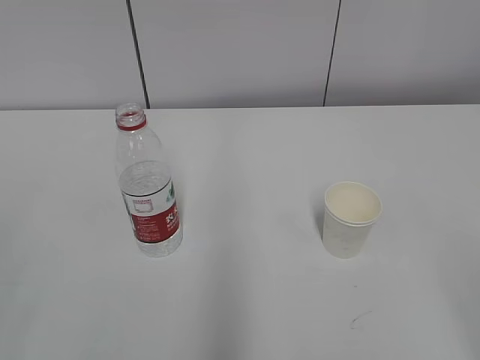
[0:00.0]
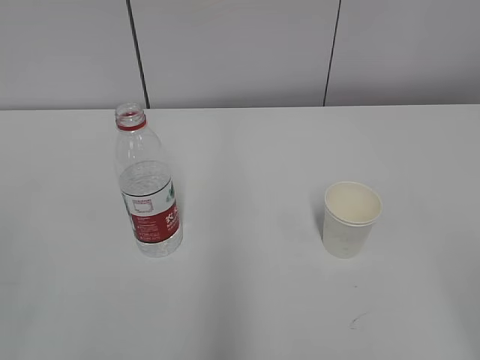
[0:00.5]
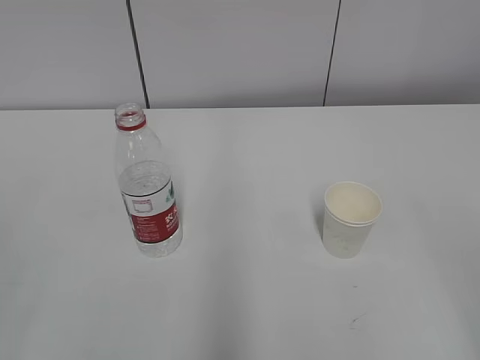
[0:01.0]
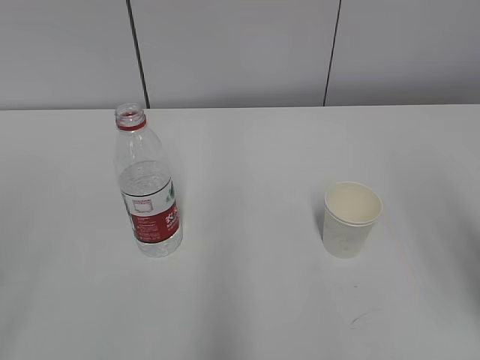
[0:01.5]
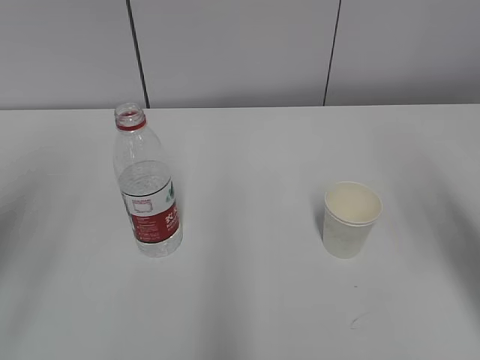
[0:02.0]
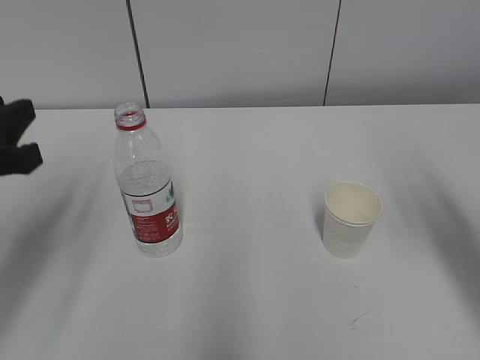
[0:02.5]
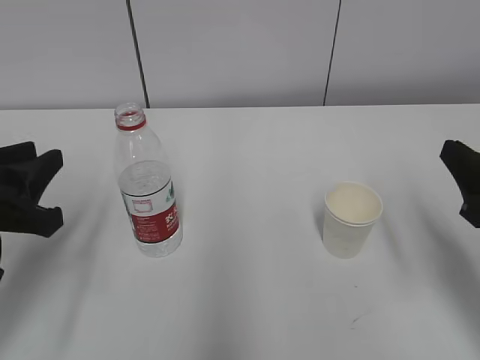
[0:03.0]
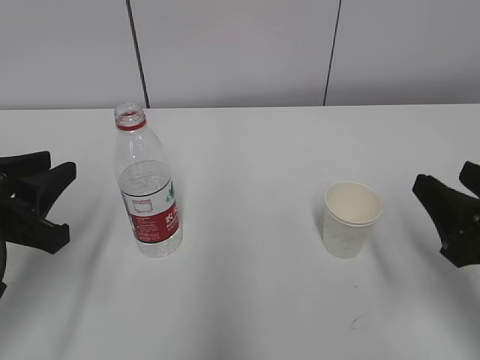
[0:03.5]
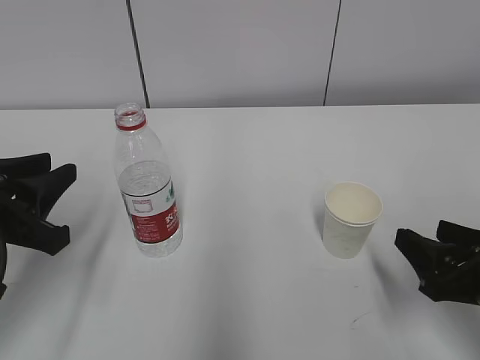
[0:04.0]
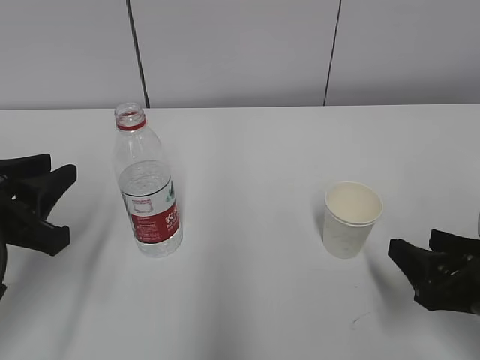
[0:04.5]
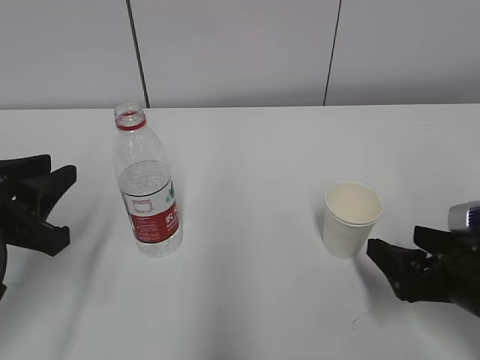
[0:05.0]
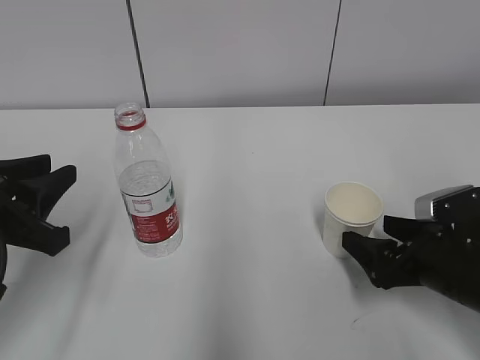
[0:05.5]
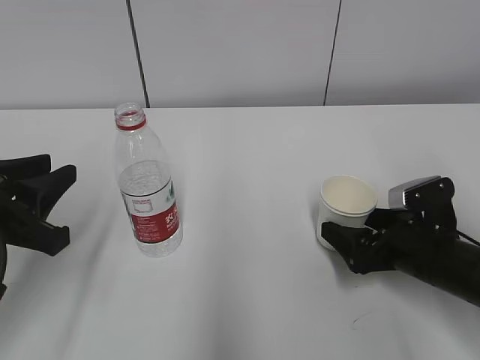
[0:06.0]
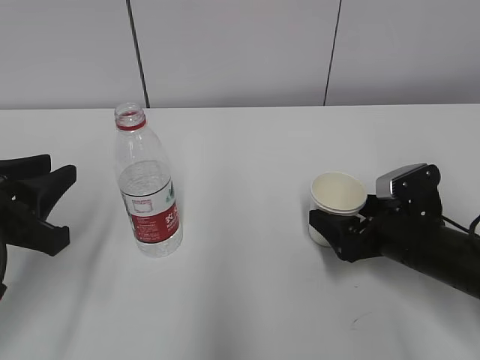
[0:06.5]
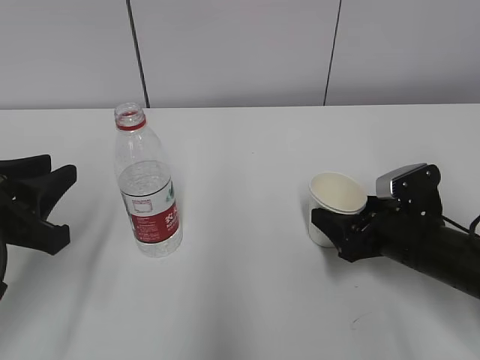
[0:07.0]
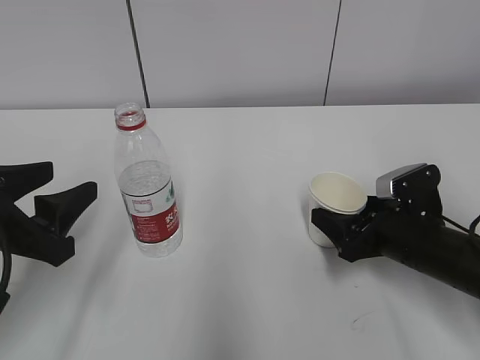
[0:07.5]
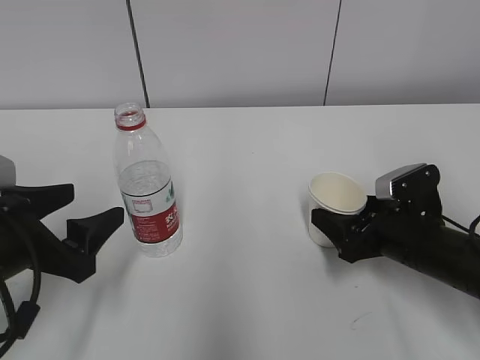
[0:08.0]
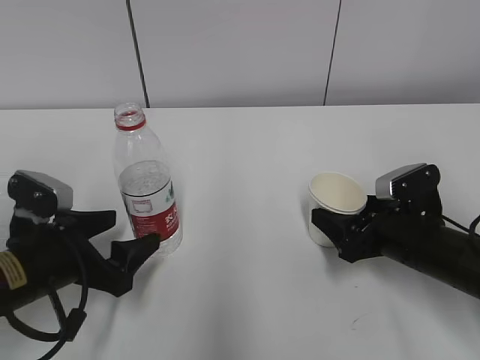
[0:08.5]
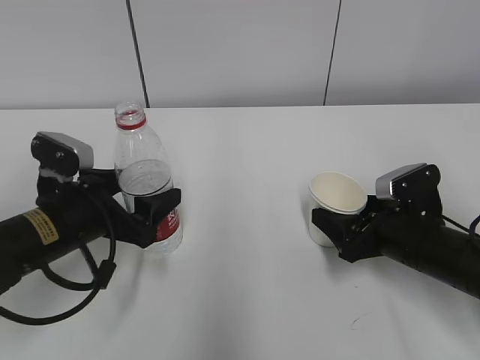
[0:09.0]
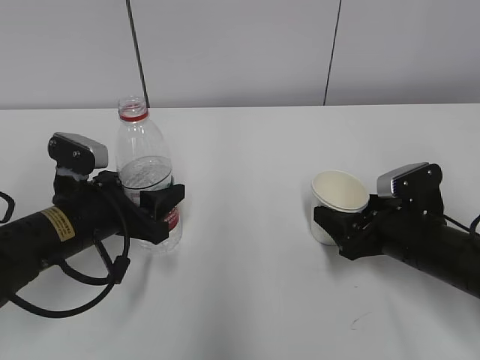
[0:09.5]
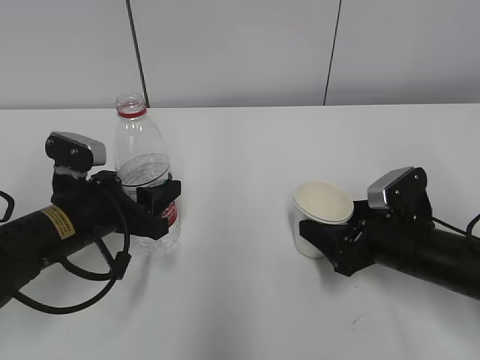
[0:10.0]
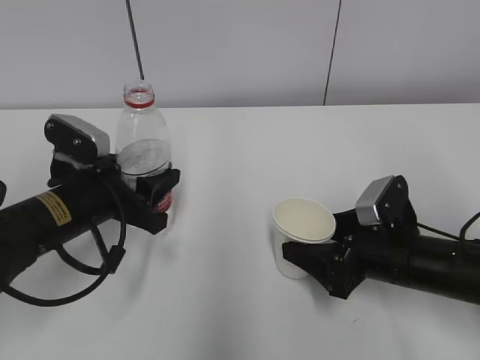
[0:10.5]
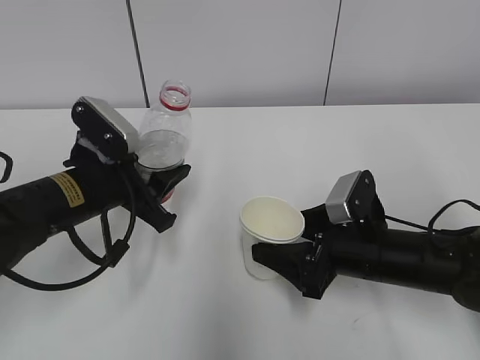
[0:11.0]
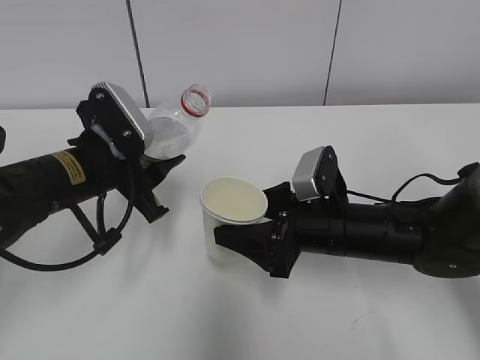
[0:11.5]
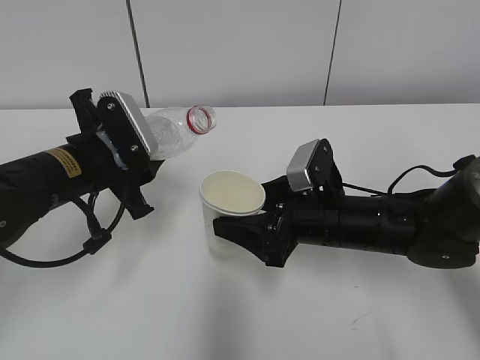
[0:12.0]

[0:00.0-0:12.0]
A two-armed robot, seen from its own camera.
Step, 0:00.0 to 0:08.0: Grab the paper cup with the right hand.
0:02.0 to 0:04.0: Both grippers travel together downward, approximately 15 cm.
0:04.0 to 0:06.0: The right gripper heads forward and downward, covering about 10 cm, and opens its fingers.
0:06.0 to 0:08.0: The left gripper opens up, while the right gripper closes its fingers.
0:08.0 to 0:10.0: The left gripper travels forward by about 10 cm, and closes up.
0:10.0 to 0:12.0: The left gripper goes roughly 5 cm upward. The right gripper is displaced to the left by roughly 10 cm.

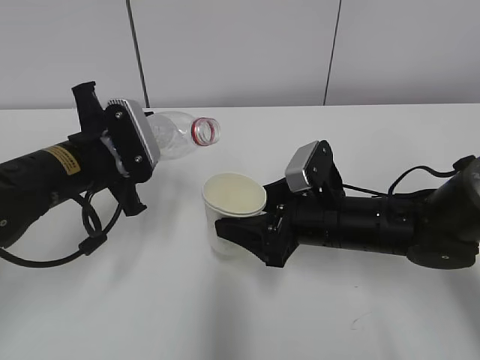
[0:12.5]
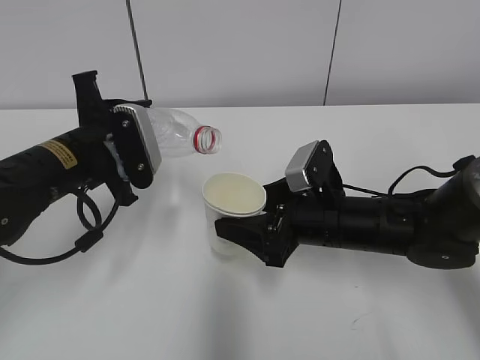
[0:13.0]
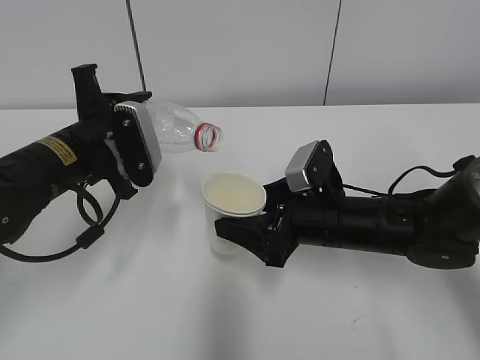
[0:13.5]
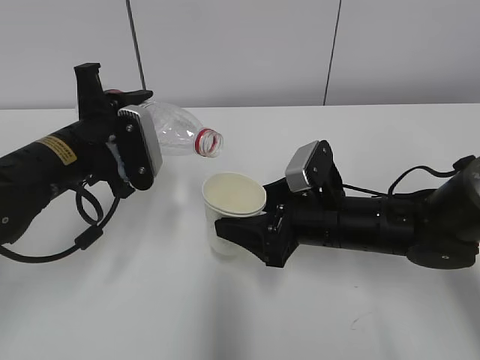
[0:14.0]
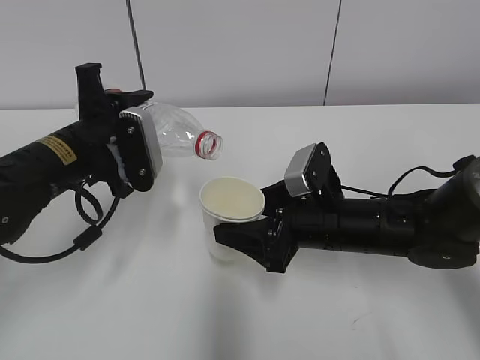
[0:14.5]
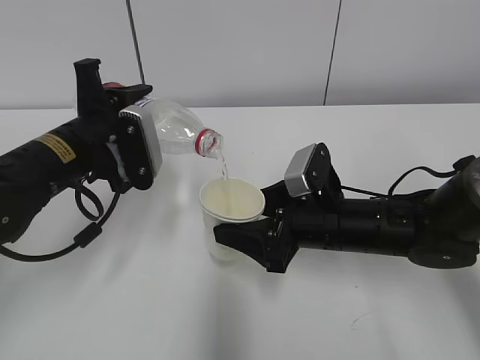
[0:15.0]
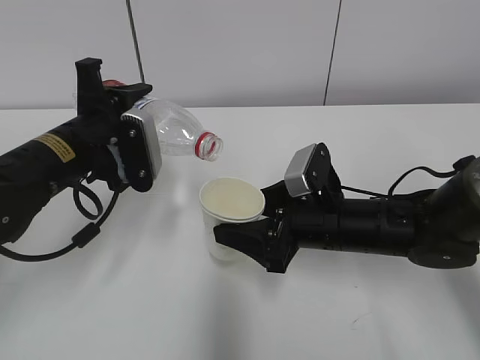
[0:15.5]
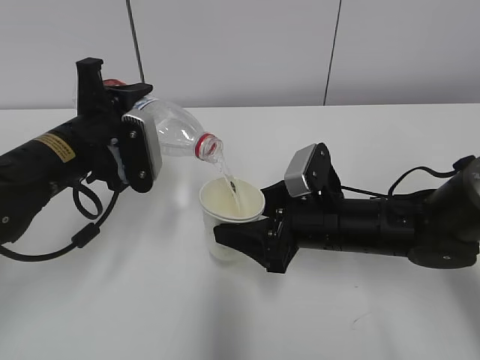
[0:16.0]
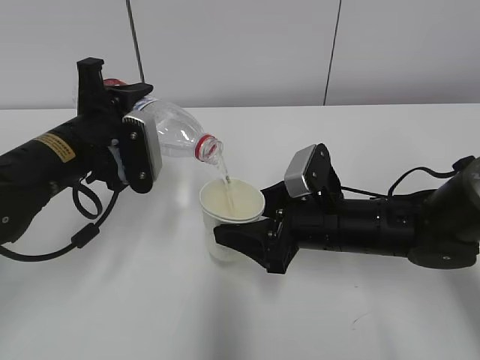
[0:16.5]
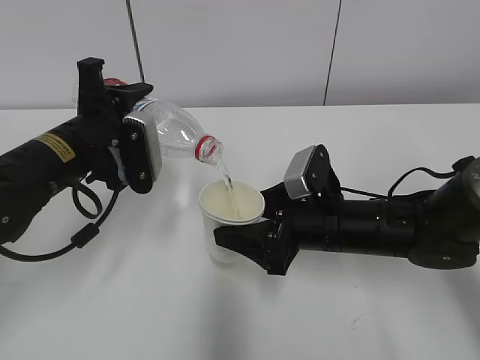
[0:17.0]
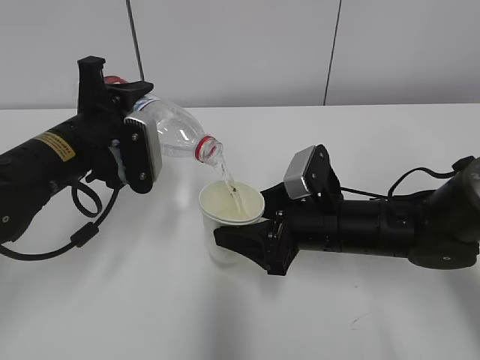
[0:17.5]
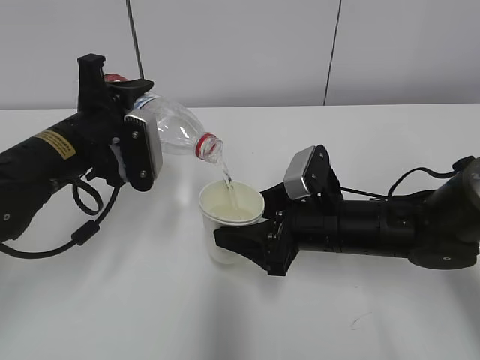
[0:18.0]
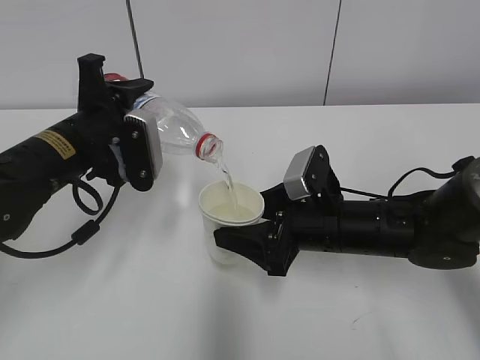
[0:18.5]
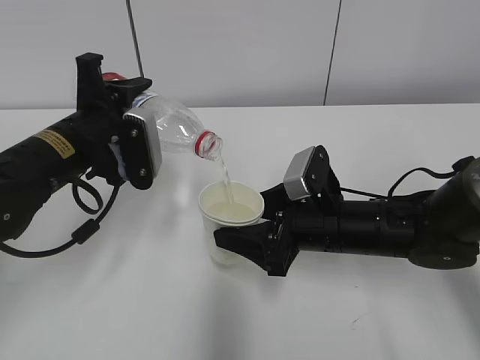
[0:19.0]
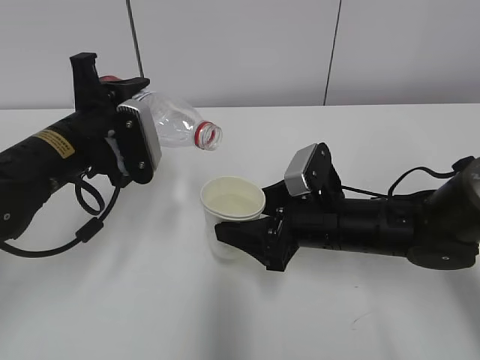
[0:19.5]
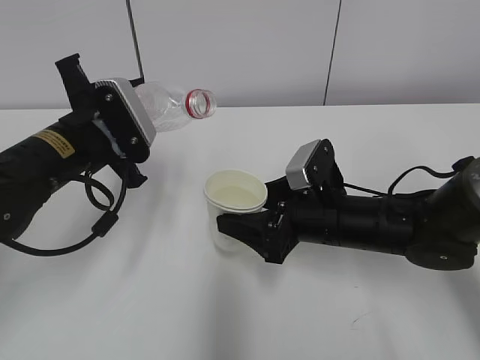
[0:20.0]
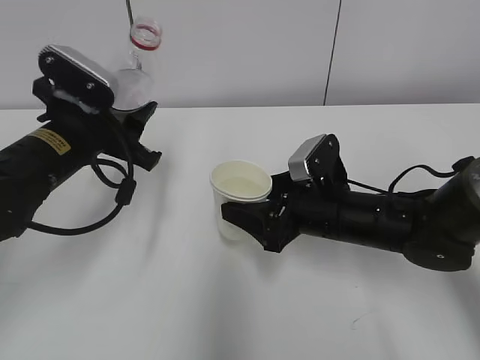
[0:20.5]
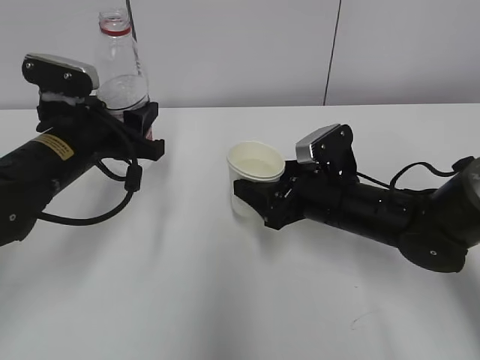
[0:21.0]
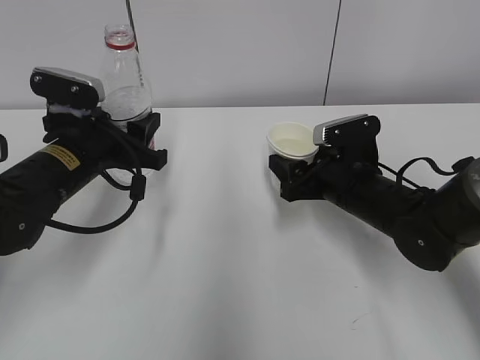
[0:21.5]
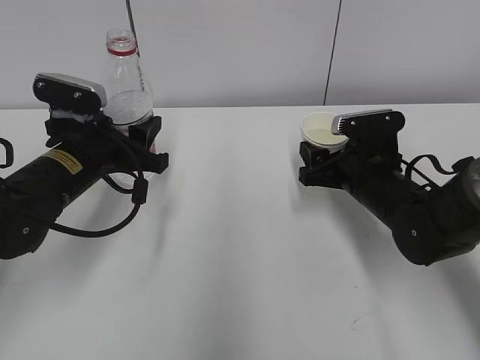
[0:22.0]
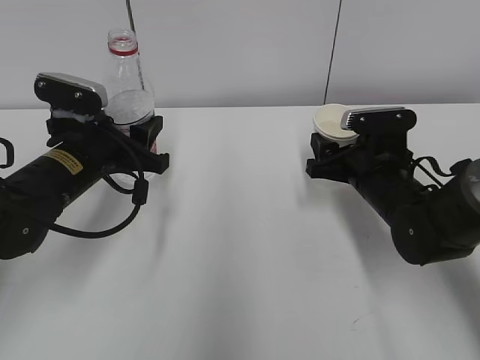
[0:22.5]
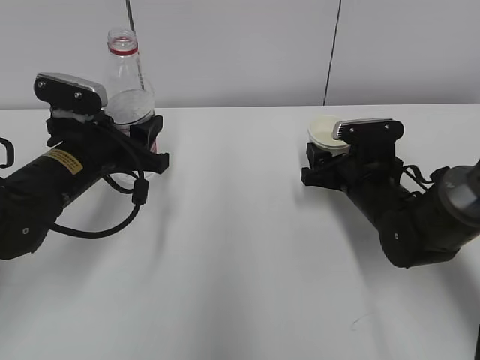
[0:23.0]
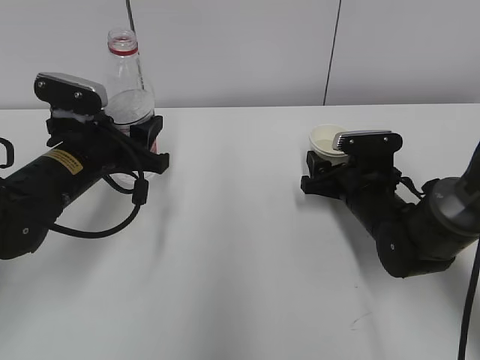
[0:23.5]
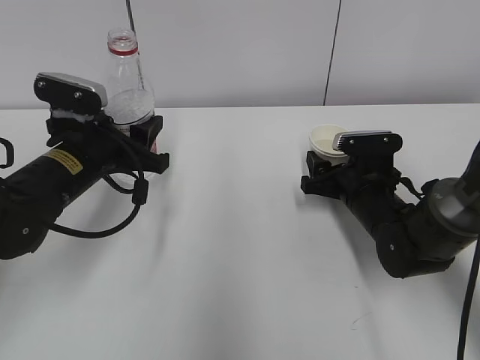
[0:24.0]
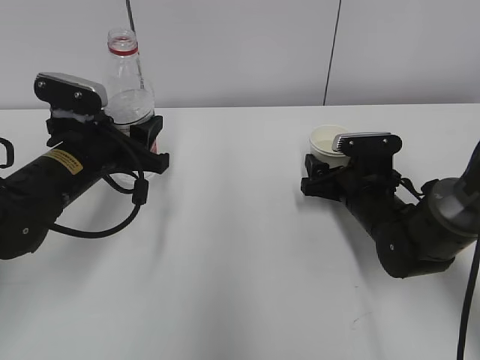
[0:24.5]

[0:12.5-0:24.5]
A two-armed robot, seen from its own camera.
Step, 0:12.5 to 0:16.0: Fill water with the right hand.
Step, 0:12.5 to 0:16.0: Pour water with the left hand.
Step, 0:17.5 to 0:20.0: Place the paper cup with the right hand.
Step, 0:20.5 to 0:22.0: Place the water bottle with the left hand.
0:14.5 to 0:16.5: There are only small adjustments of the grippers.
0:16.5 to 0:18.5: Both grippers stay about where they are.
0:20.5 to 0:22.5: The right gripper heads to the right, covering approximately 5 cm.
0:22.5 to 0:24.5: The right gripper opens up.

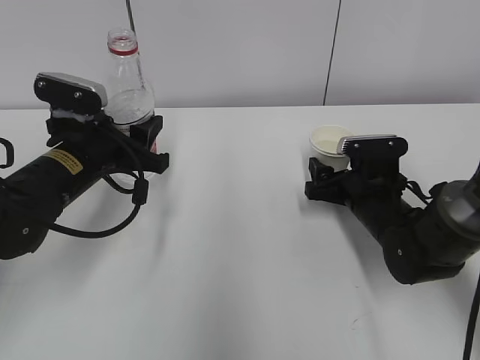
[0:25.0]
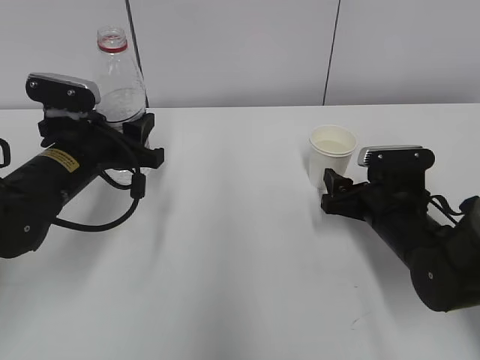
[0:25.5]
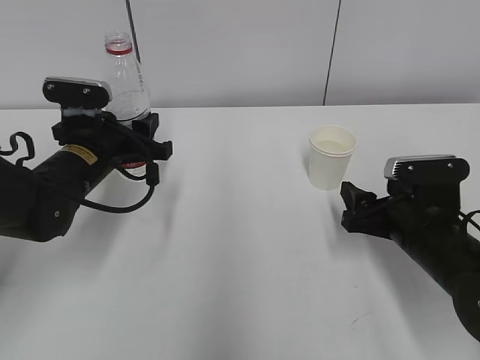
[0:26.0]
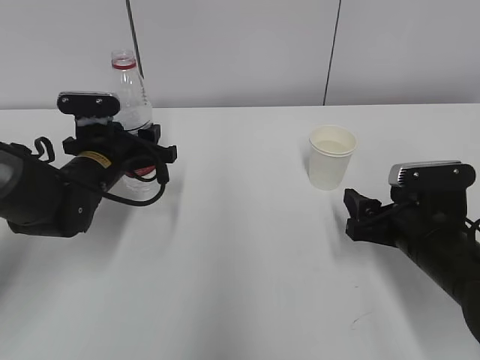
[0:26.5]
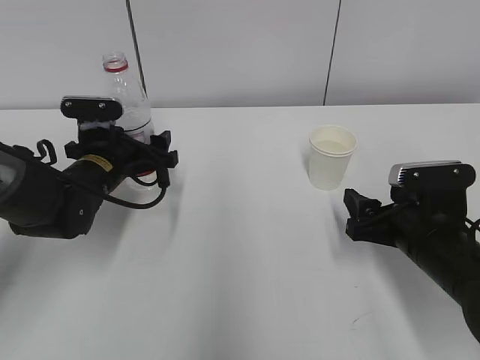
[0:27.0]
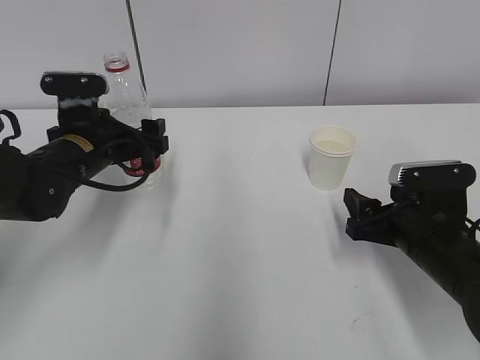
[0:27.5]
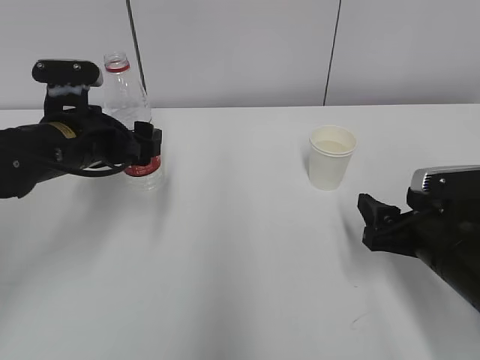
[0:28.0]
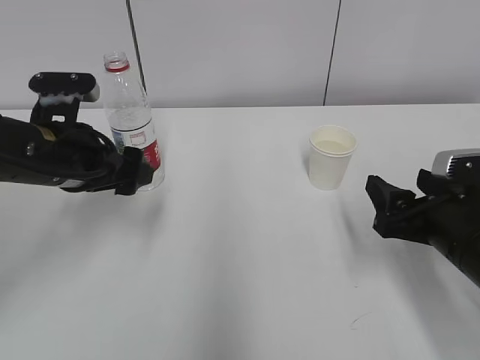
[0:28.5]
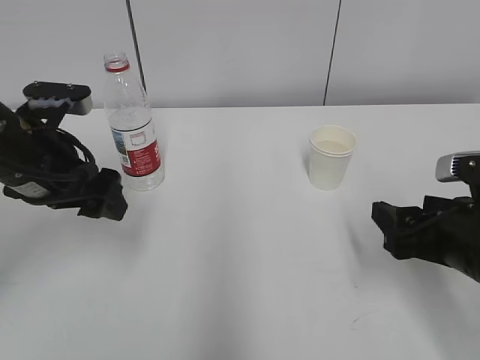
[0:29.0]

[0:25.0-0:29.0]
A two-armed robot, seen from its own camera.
0:25.0 to 0:27.0: The left gripper is displaced forward by some 5 cm, and opens. Meanwhile the right gripper moves backward, roughly 10 cm.
0:27.0 to 0:29.0: The right gripper goes roughly 10 cm upward and backward; the left gripper shifts about 15 cm upward and backward.
